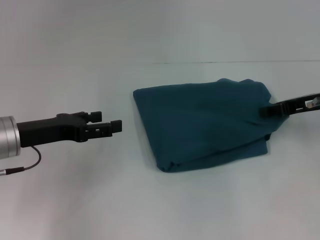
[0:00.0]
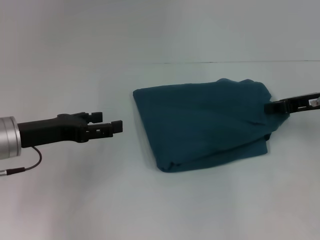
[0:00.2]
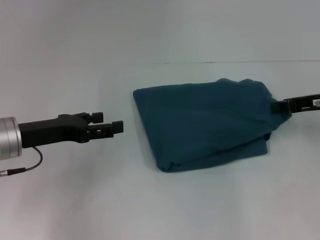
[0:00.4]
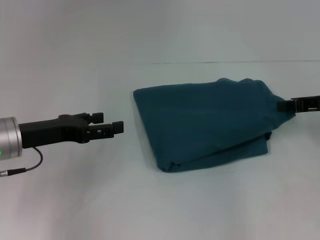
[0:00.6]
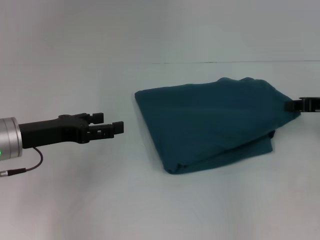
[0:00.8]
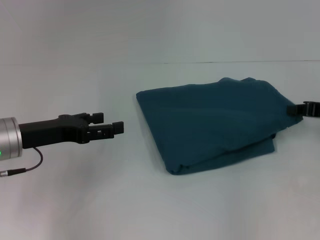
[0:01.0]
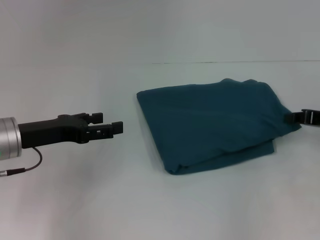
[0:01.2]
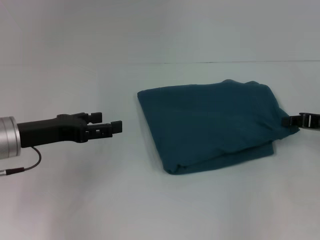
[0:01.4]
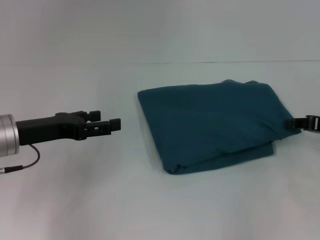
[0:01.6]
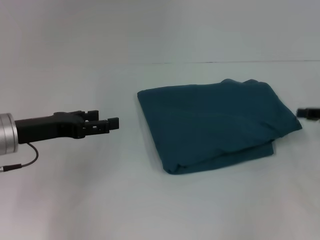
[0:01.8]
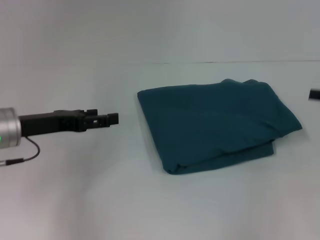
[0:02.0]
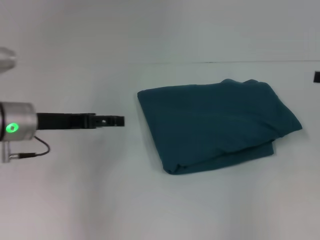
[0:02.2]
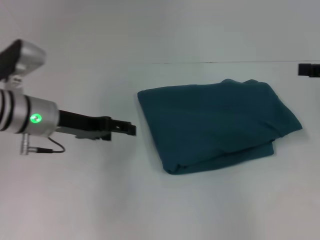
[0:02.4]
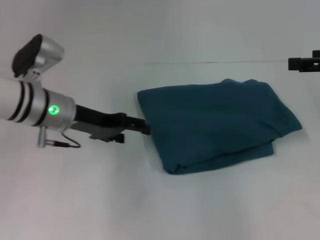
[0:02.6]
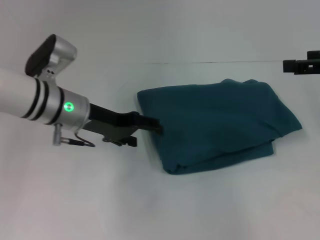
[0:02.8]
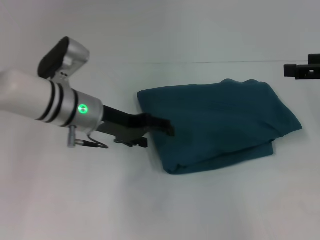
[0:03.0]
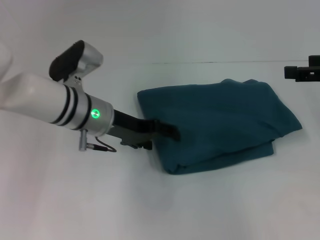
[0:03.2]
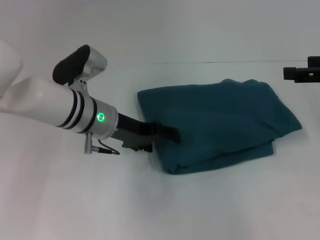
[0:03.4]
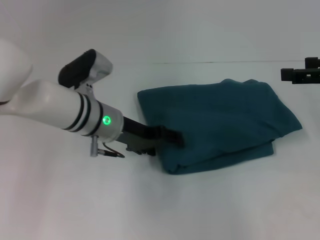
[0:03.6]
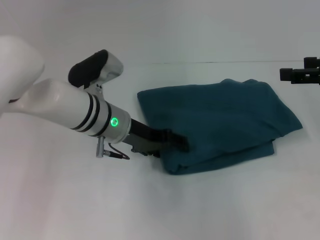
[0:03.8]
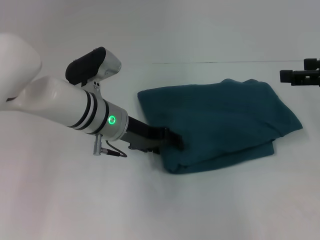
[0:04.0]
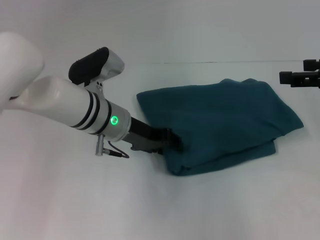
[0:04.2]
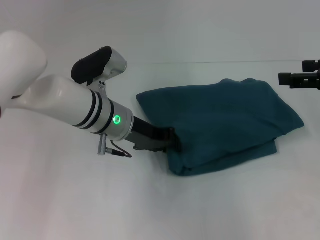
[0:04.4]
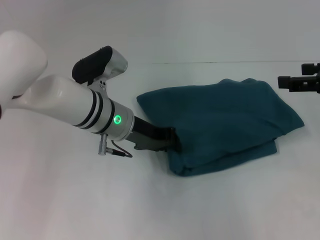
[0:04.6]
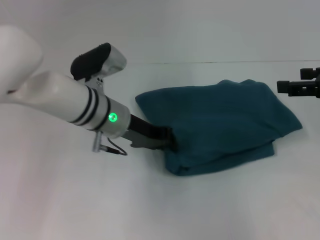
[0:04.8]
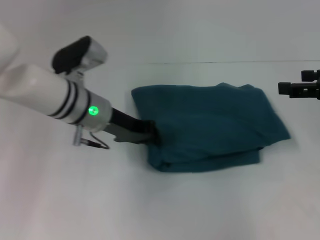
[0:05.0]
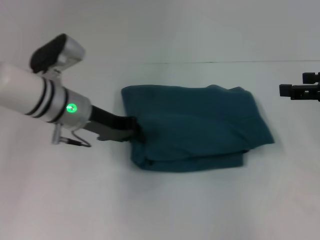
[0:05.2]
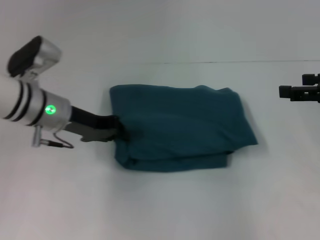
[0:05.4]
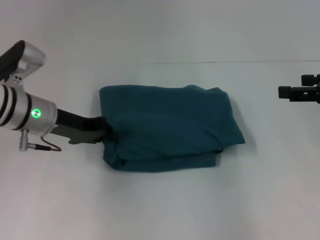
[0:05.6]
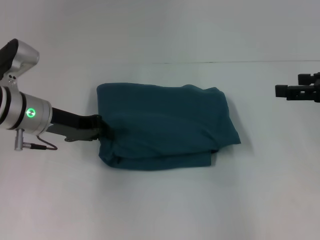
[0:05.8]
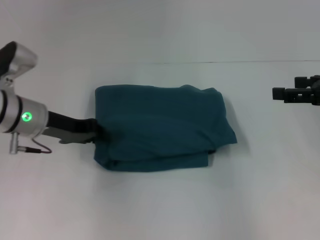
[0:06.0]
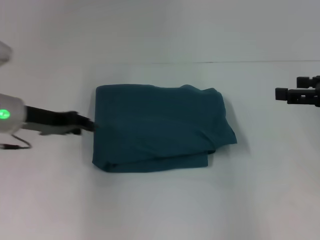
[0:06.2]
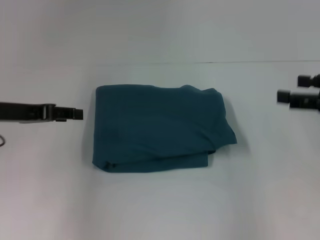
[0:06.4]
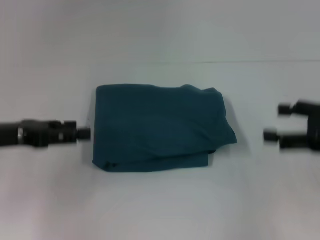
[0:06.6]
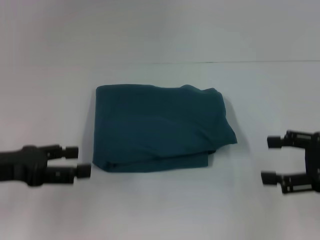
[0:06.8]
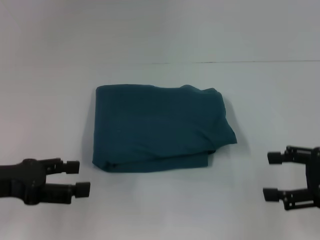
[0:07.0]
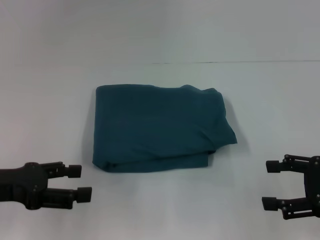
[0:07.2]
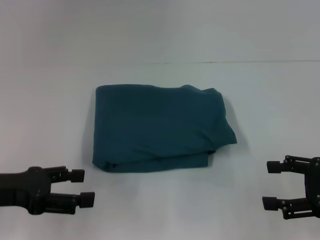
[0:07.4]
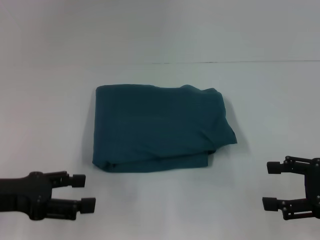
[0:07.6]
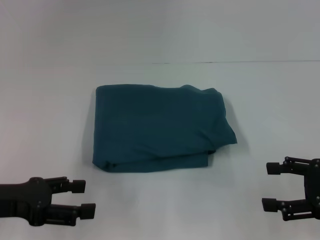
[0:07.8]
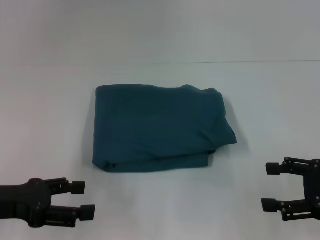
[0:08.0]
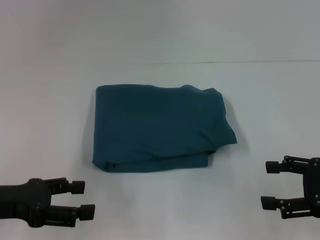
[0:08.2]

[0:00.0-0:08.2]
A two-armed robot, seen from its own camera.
0:00.0 to 0:01.6: The right gripper travels to the right by some 5 cm, and closes its fingers.
0:01.6 to 0:03.2: The left gripper heads to the right and forward, covering approximately 15 cm; the right gripper travels upward by approximately 10 cm, and opens its fingers.
0:03.2 to 0:05.0: The left gripper closes up.
0:05.0 to 0:06.6: The left gripper moves to the left and backward, some 20 cm, and opens up. The right gripper moves about 5 cm.
0:06.6 to 0:08.2: The left gripper shifts about 5 cm backward, while the right gripper changes place by roughly 5 cm.

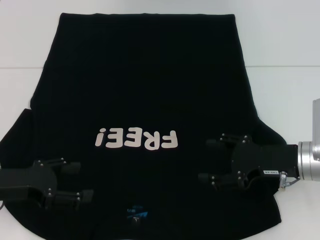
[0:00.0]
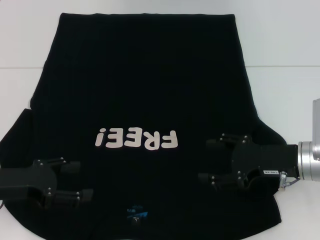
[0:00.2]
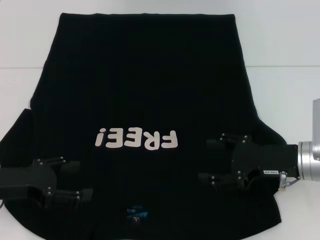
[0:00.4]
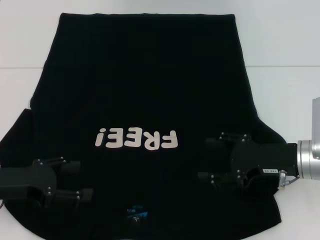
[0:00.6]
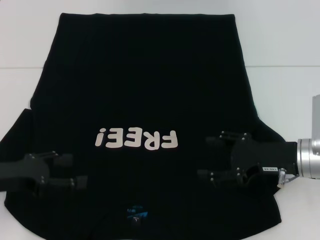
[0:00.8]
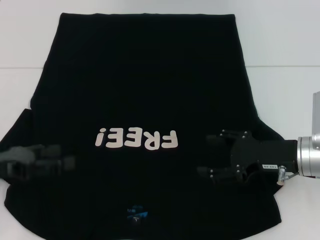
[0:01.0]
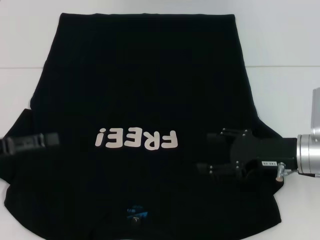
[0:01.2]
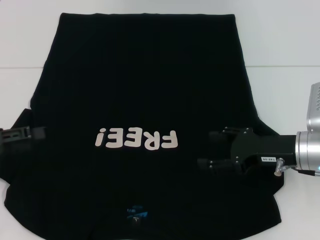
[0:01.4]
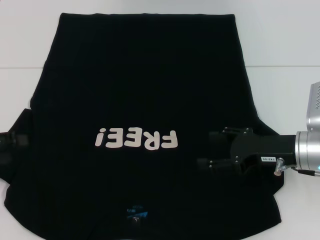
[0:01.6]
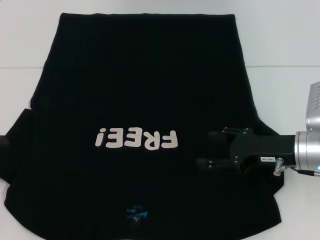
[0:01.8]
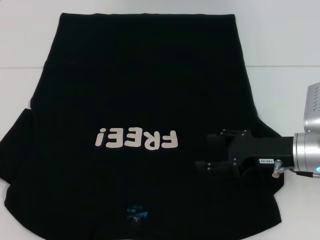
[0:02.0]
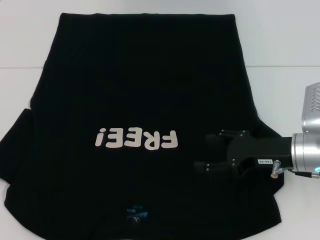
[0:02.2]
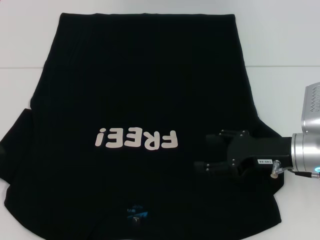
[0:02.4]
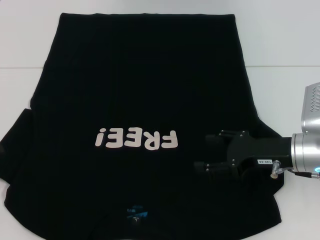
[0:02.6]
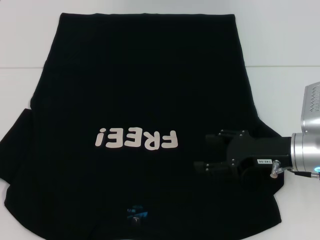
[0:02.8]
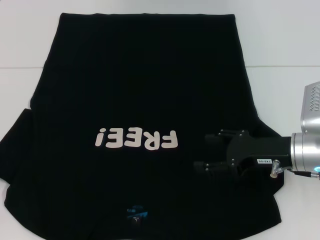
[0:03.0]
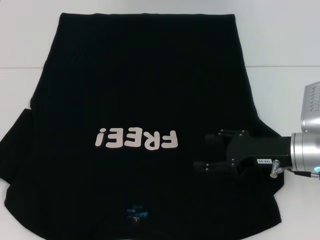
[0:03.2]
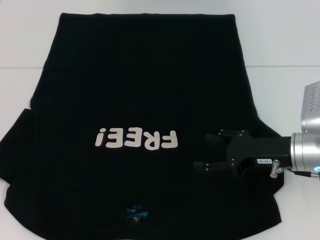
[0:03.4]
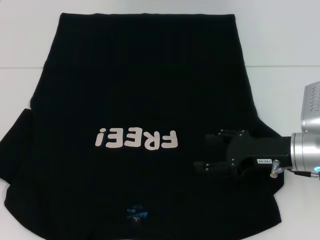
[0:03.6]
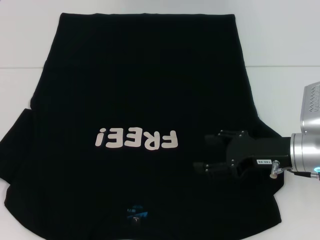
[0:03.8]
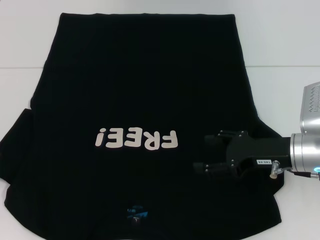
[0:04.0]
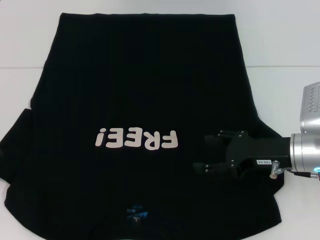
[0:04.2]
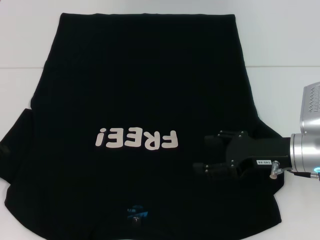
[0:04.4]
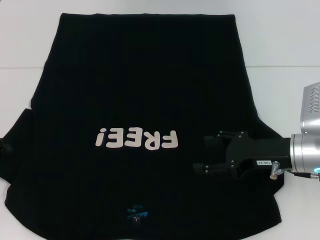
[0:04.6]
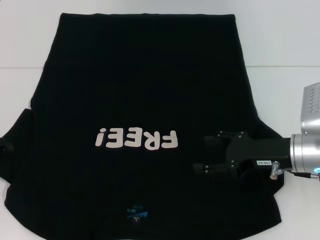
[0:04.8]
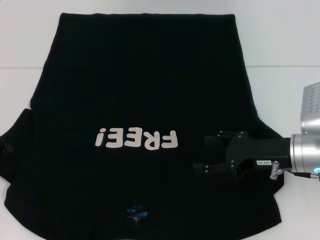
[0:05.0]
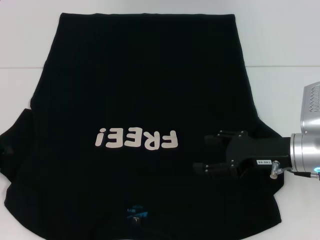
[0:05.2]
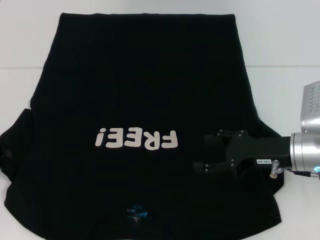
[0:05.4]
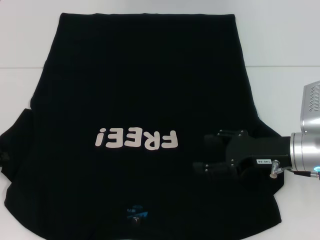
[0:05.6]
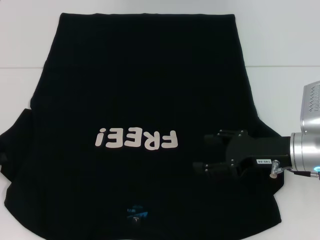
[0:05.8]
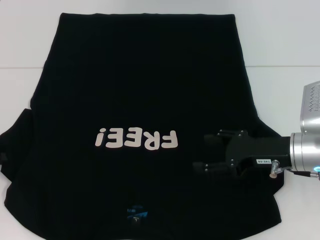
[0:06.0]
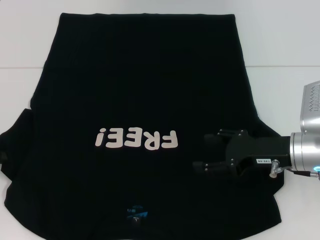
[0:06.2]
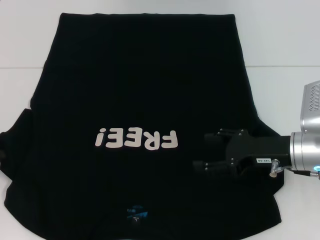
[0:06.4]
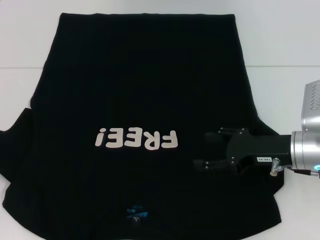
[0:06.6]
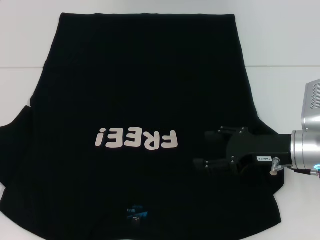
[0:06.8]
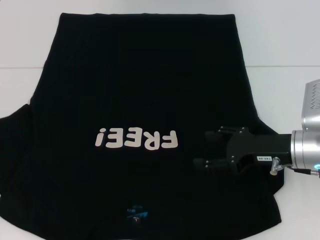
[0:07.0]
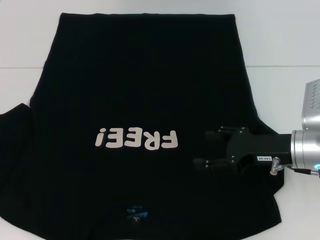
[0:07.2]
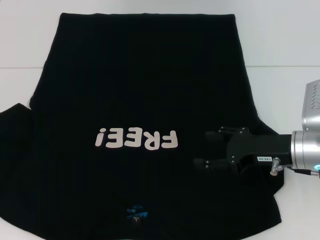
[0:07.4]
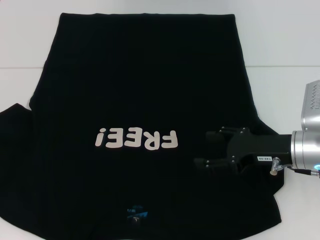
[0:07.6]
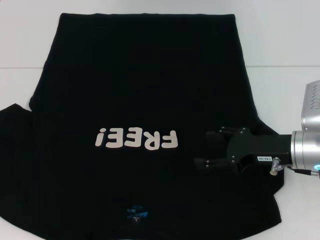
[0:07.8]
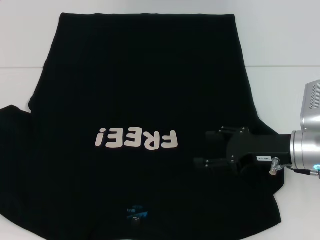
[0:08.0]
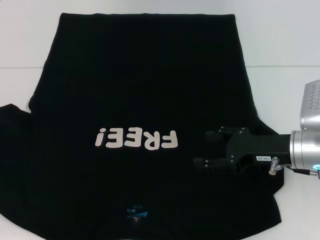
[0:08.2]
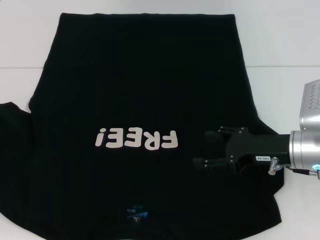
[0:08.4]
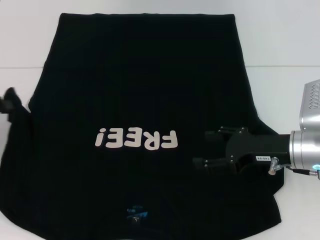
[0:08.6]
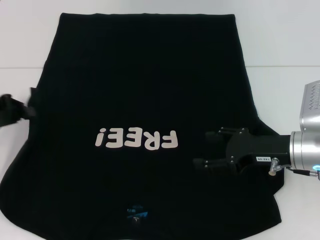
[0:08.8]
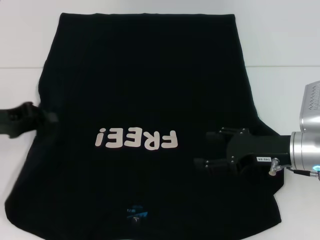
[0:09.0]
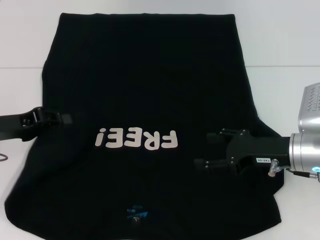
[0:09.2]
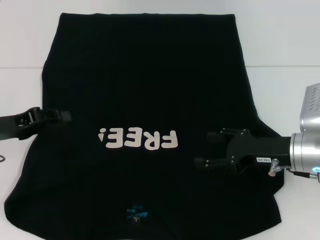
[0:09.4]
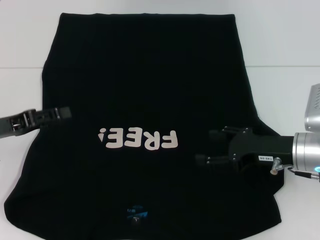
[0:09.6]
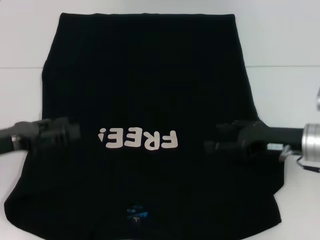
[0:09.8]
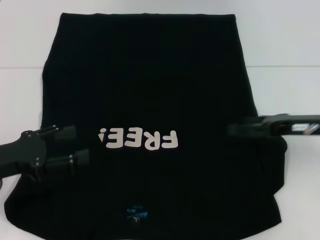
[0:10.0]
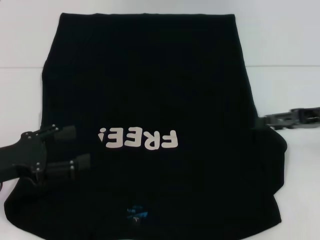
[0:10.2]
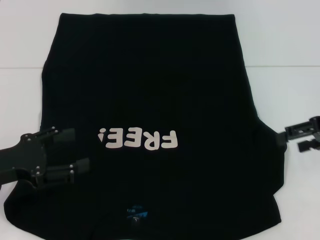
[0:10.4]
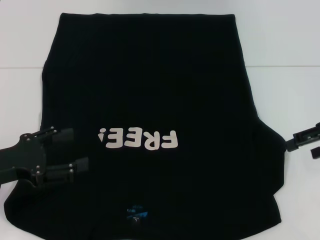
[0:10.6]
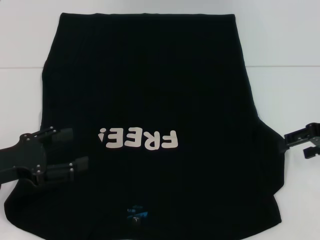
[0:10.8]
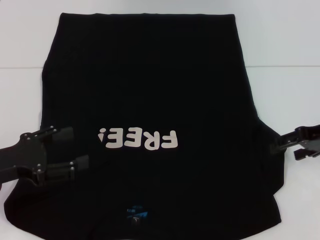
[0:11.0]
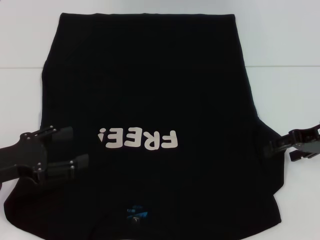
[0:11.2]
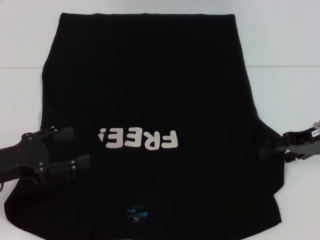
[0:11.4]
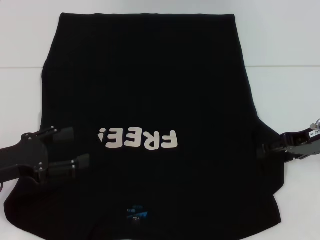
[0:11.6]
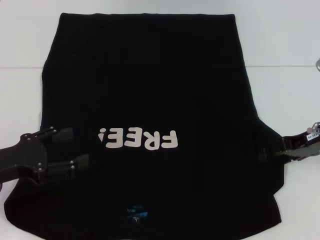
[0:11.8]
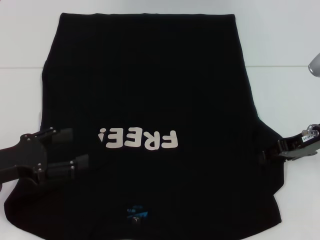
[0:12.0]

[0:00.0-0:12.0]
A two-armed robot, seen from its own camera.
Step, 0:00.0 to 0:09.8: Fold the bottom left sleeve with your left hand.
0:00.0 to 0:01.6: The left gripper is displaced to the left by about 10 cm.
0:03.0 to 0:04.4: The grippers stay close to where they were, moving slightly.
0:06.0 to 0:07.6: The left gripper changes place by some 5 cm.
0:07.6 to 0:09.0: The left gripper goes about 10 cm to the right.
0:09.0 to 0:10.4: The left gripper shifts approximately 10 cm backward, and opens its fingers. Meanwhile the right gripper is displaced to the right and upward by roughly 15 cm.
0:10.4 to 0:12.0: The right gripper travels to the left by approximately 5 cm.

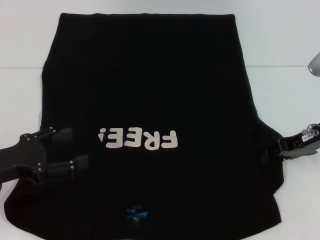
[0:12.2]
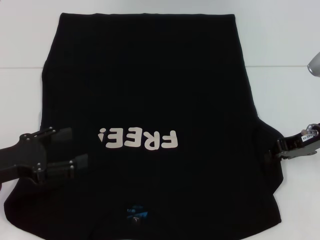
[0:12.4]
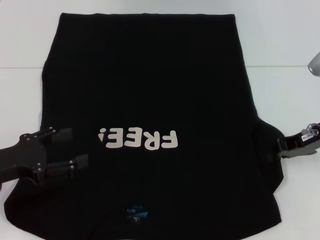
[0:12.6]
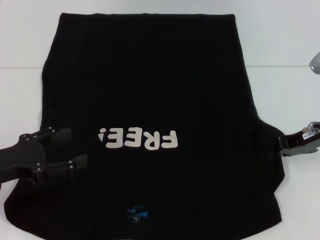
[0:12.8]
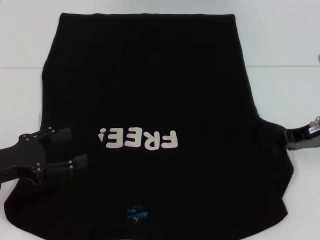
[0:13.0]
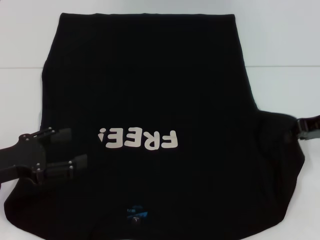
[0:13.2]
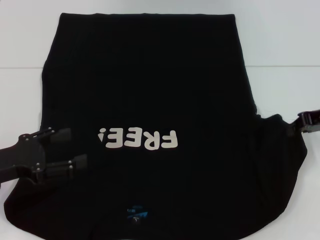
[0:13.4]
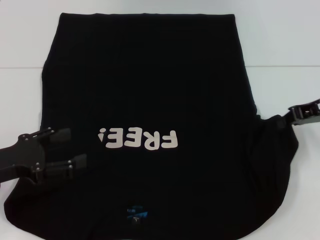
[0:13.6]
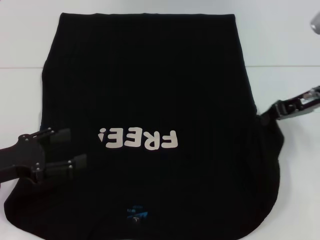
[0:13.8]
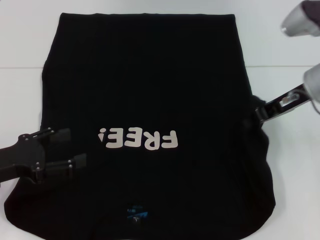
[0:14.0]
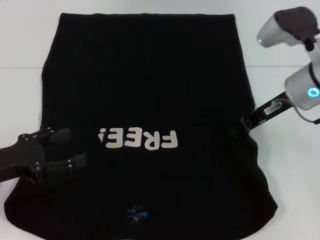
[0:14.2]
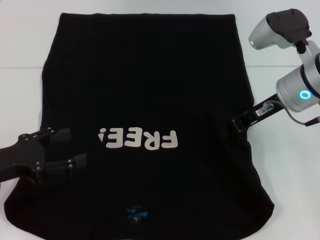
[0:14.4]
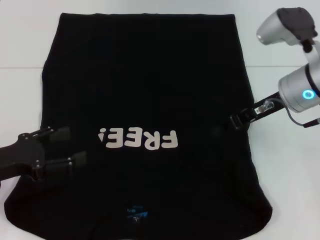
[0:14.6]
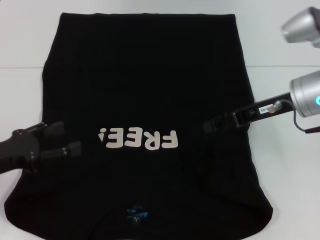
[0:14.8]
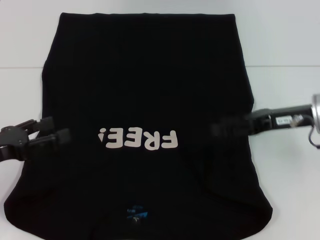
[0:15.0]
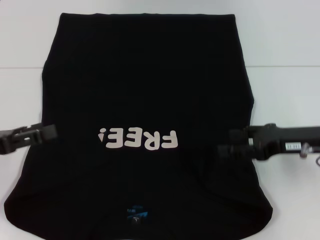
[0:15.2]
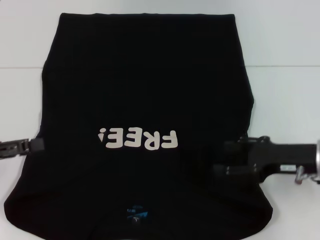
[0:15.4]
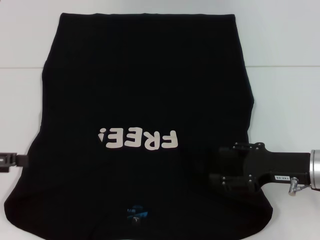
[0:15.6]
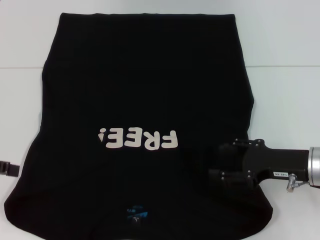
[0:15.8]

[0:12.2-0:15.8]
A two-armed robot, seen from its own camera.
Step, 0:12.2 to 0:15.2: Fold the bottom right sleeve with your right hand.
0:12.2 to 0:14.0: The right gripper goes about 5 cm upward, and closes its fingers.
0:14.0 to 0:15.8: The right gripper shifts roughly 15 cm downward and backward, and opens. Meanwhile the left gripper shifts some 10 cm upward and to the left.
